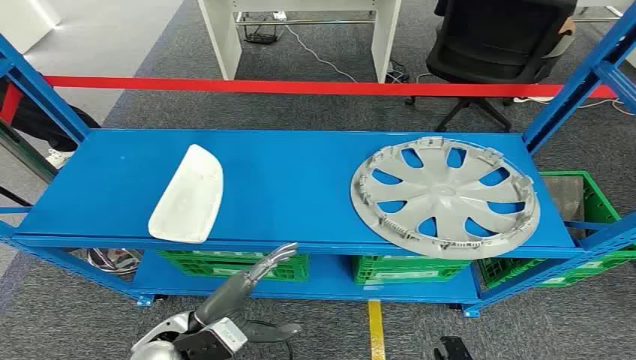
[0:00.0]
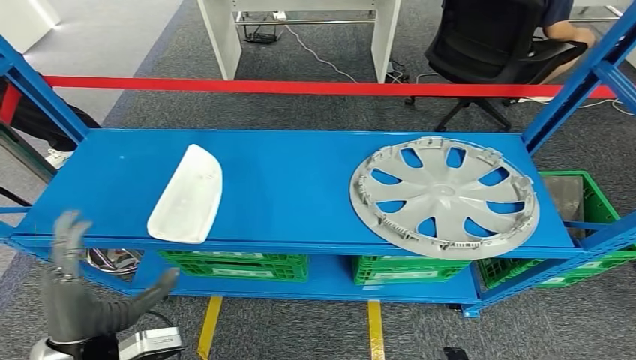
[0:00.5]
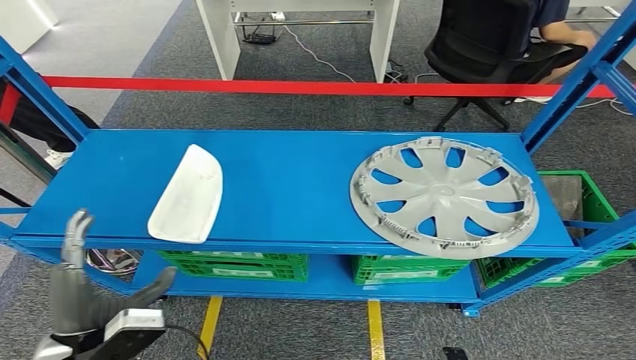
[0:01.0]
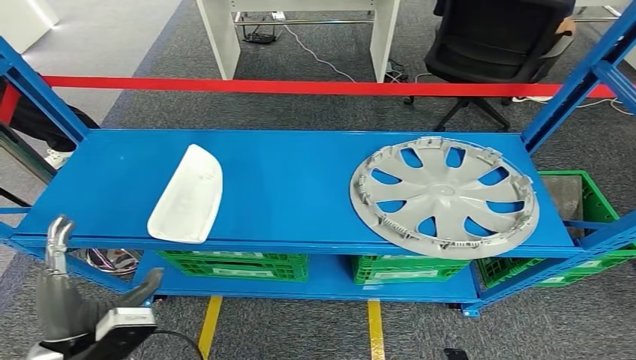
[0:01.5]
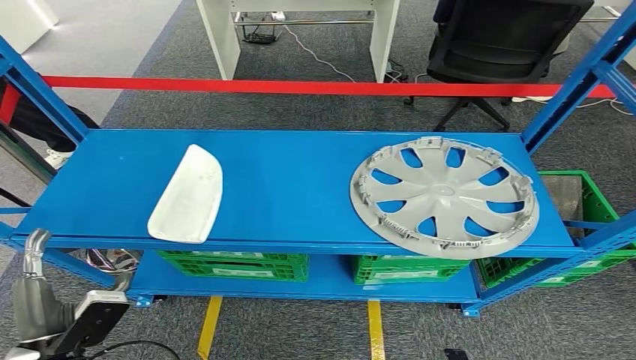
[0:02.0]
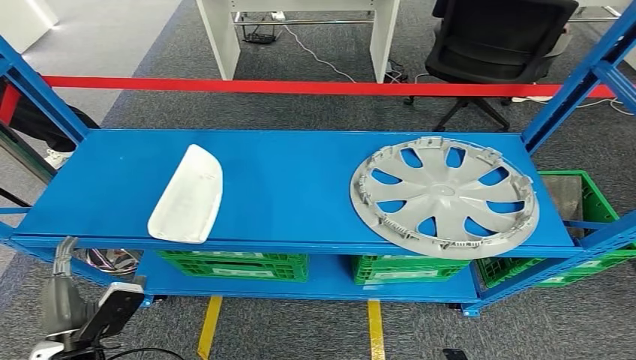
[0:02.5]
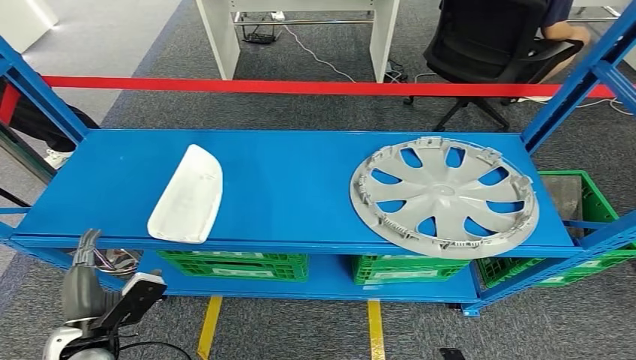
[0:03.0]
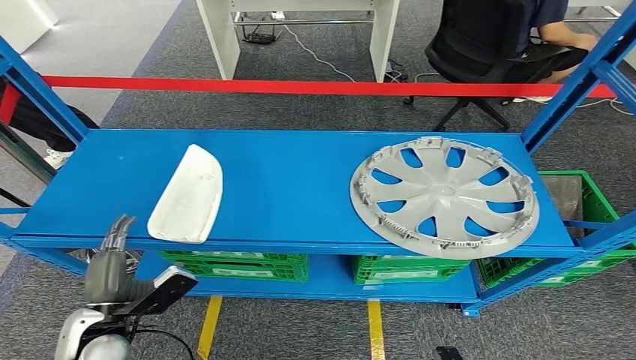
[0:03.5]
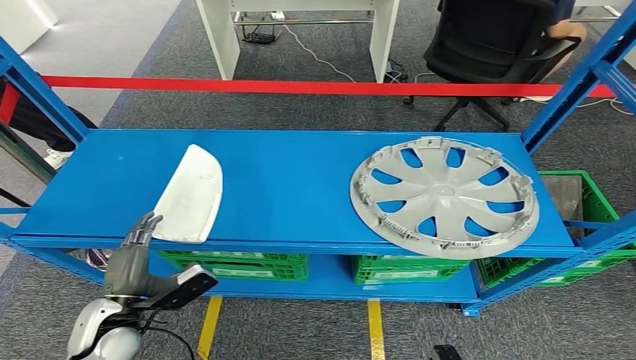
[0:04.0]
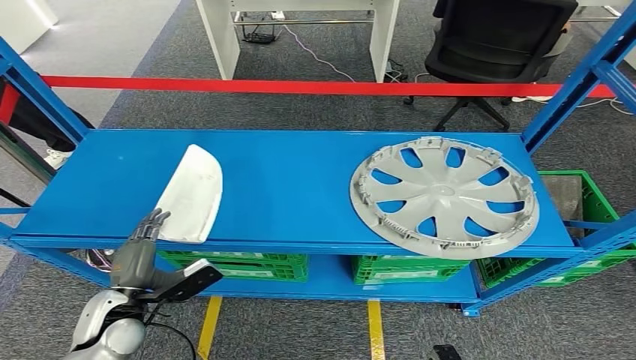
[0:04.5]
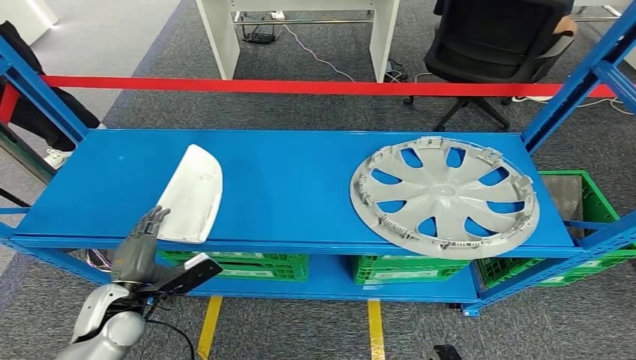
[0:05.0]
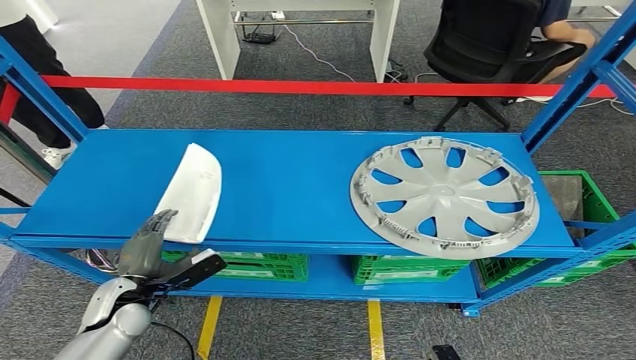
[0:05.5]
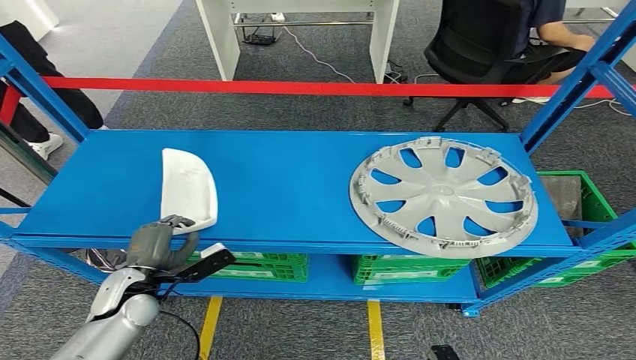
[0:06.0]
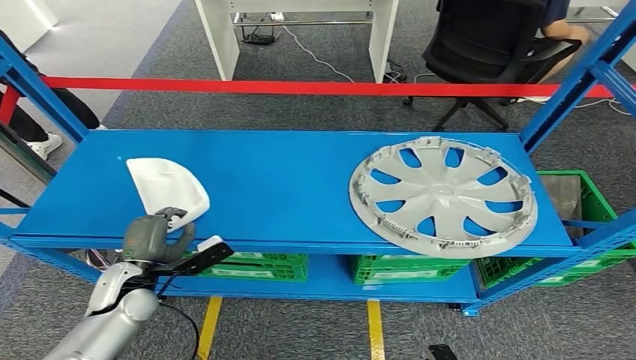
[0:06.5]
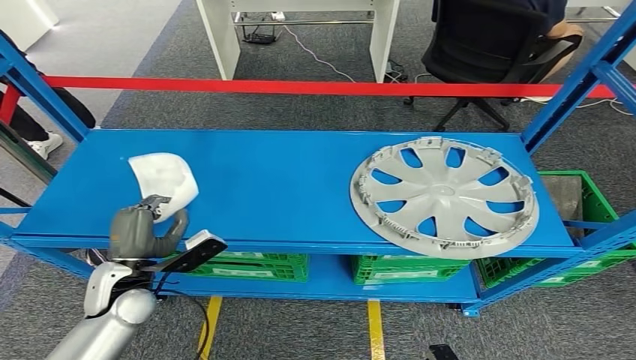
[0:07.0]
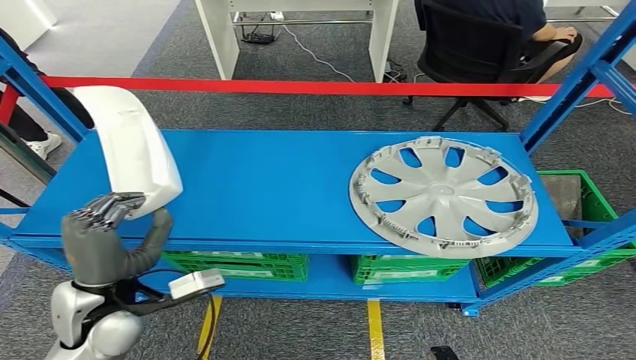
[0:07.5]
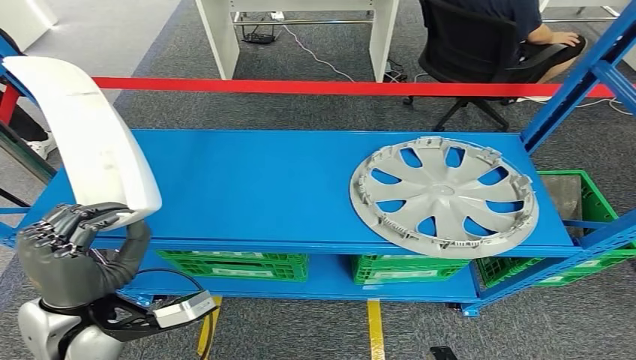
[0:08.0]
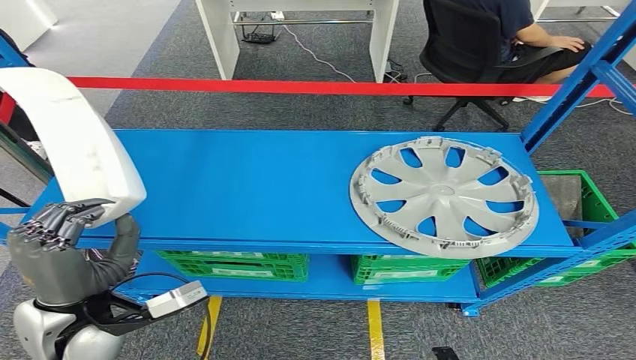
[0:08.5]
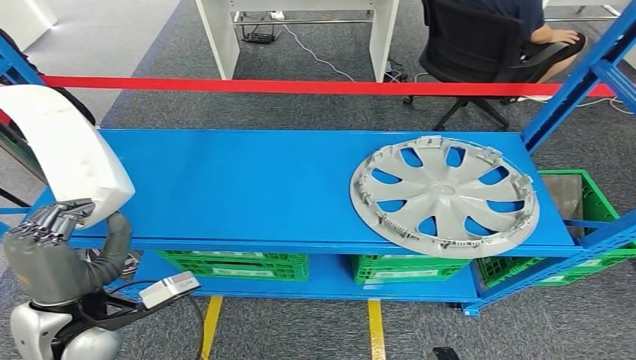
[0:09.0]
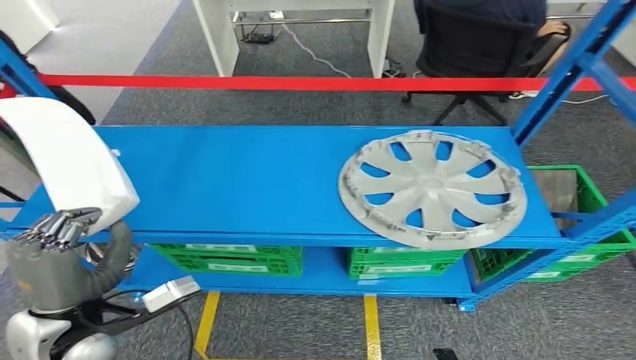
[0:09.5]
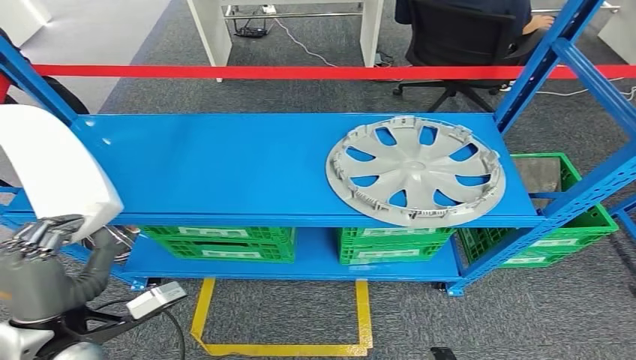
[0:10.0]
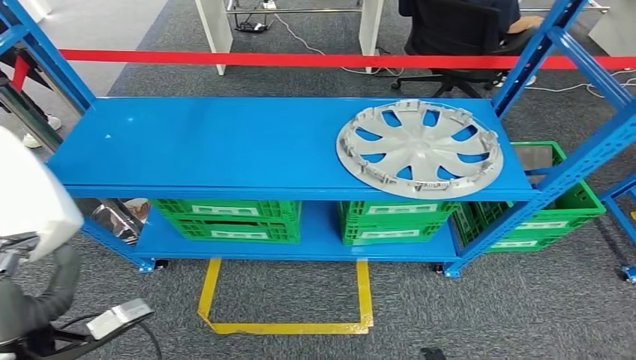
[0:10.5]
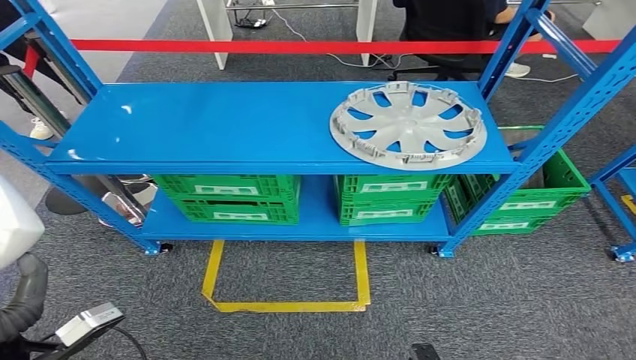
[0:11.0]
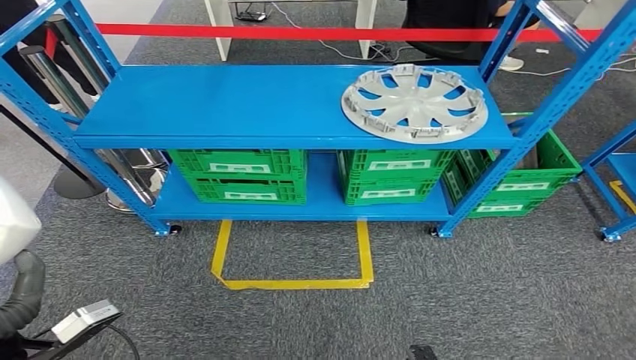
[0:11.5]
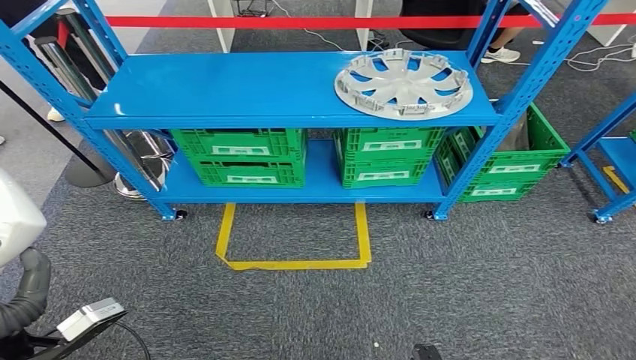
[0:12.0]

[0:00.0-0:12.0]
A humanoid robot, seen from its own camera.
Step, 0:00.0 to 0:08.5: Pick up the small component from the shelf.
0:02.0 to 0:04.0: The left hand goes about 5 cm forward.
0:04.0 to 0:06.0: The left hand is displaced forward by some 5 cm.
0:06.0 to 0:08.0: The left hand moves upward and backward, roughly 20 cm.

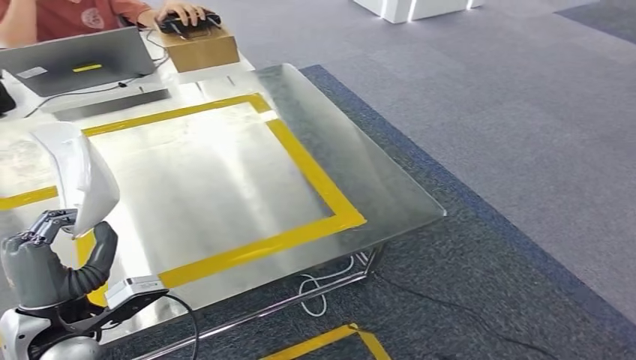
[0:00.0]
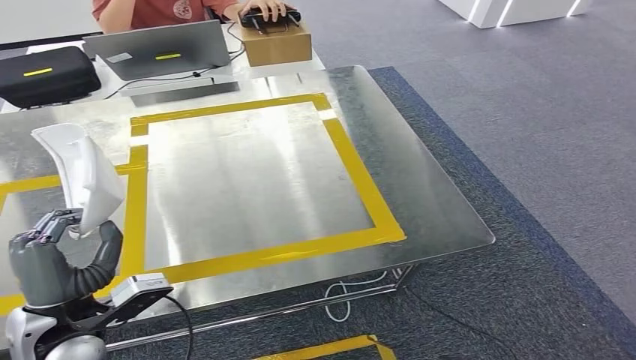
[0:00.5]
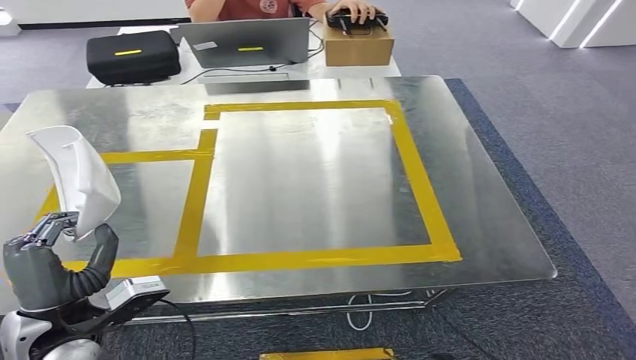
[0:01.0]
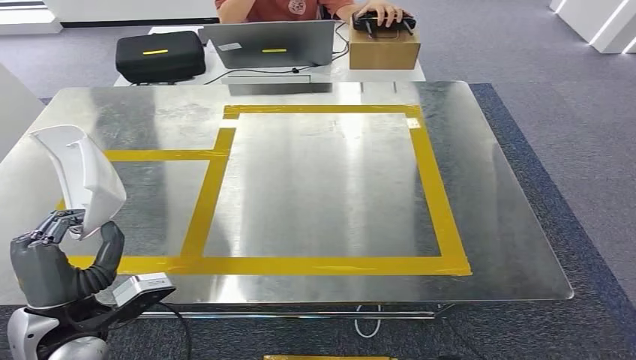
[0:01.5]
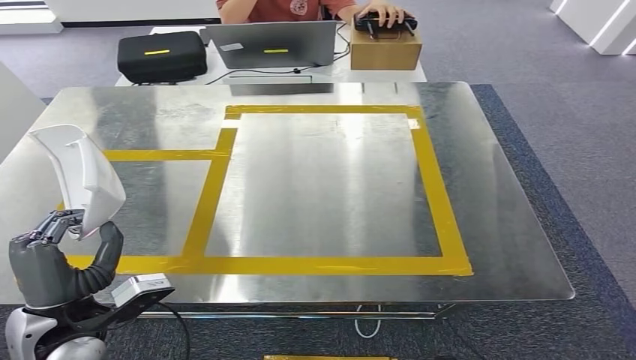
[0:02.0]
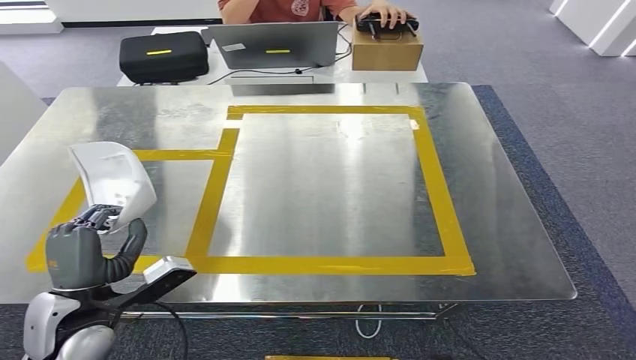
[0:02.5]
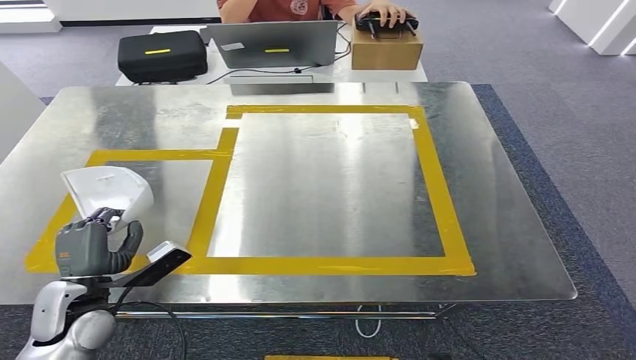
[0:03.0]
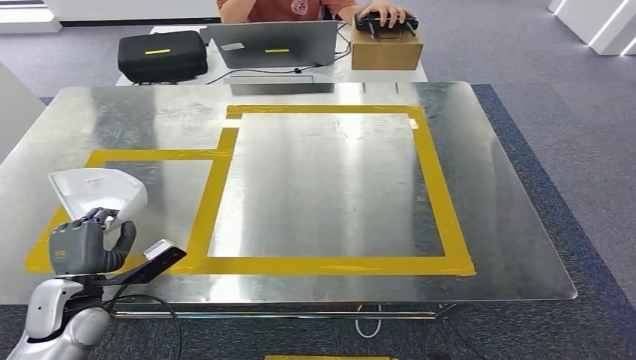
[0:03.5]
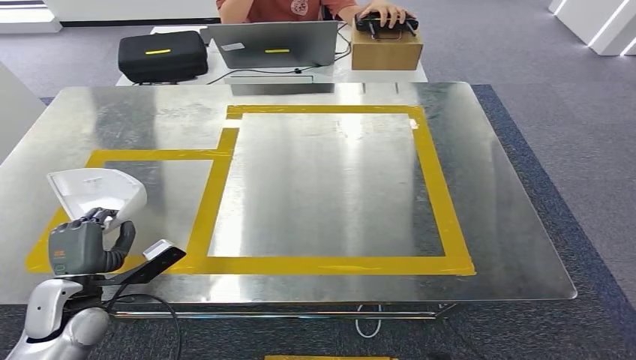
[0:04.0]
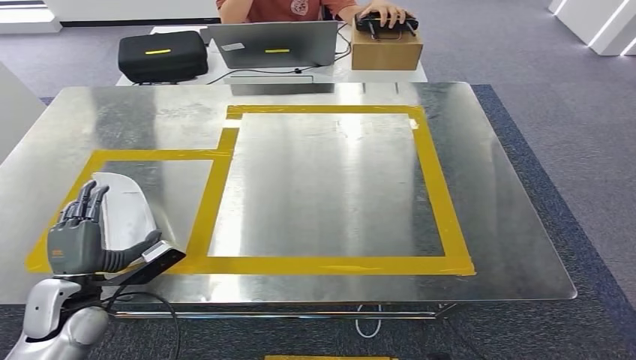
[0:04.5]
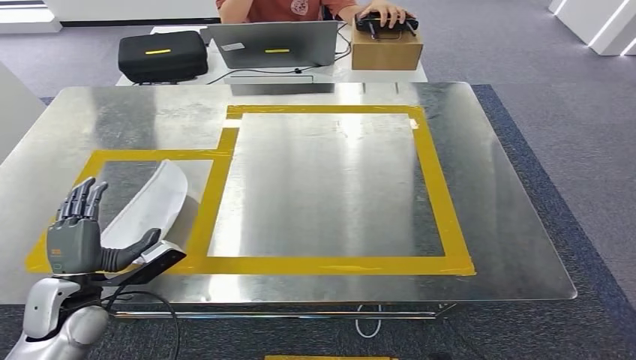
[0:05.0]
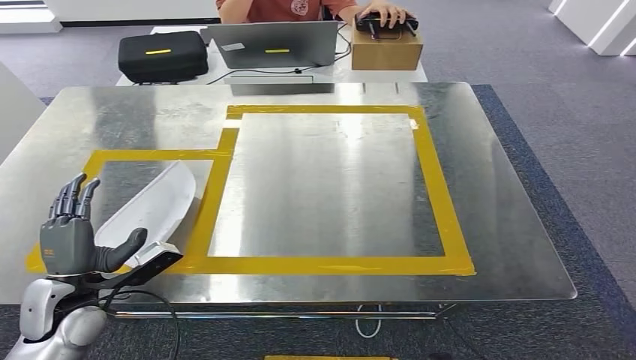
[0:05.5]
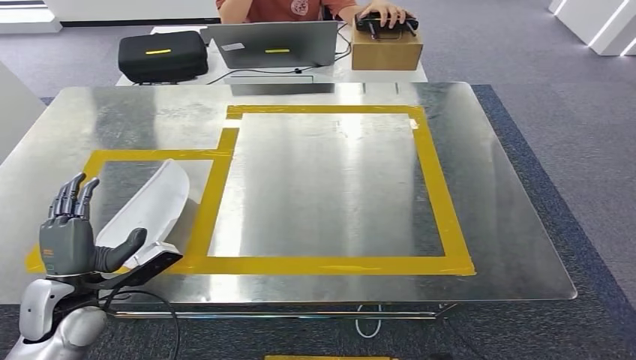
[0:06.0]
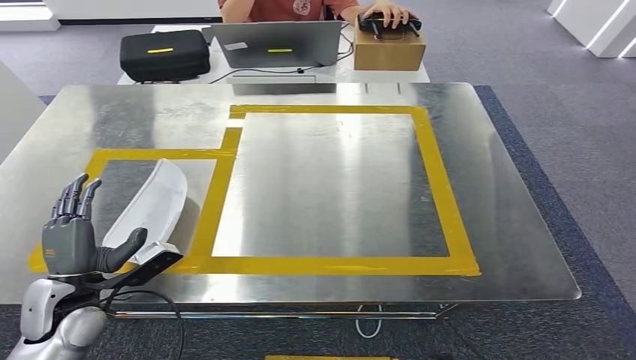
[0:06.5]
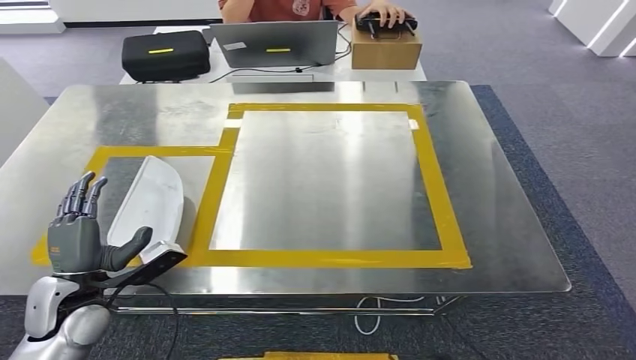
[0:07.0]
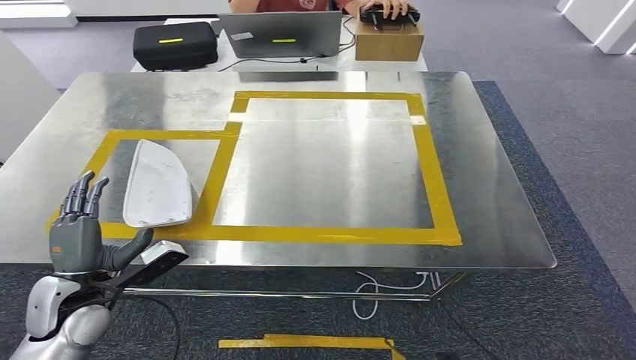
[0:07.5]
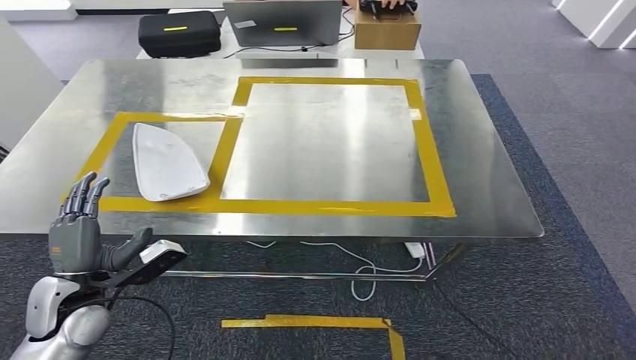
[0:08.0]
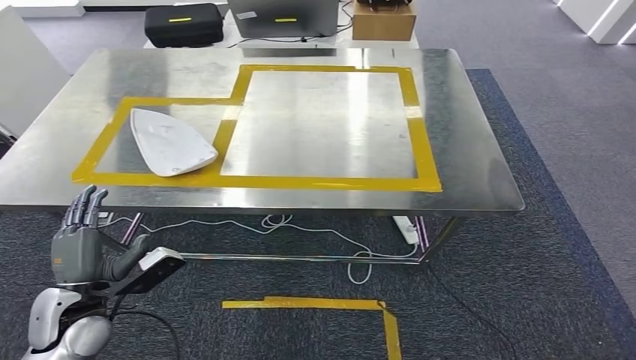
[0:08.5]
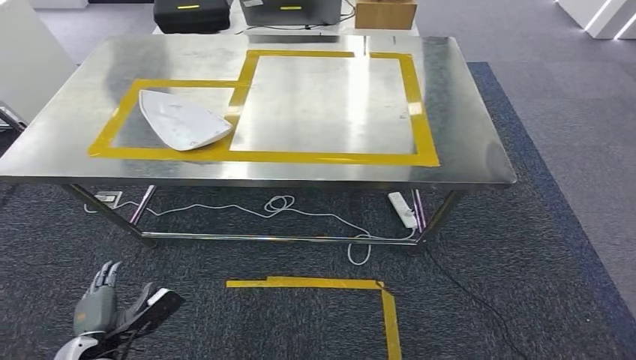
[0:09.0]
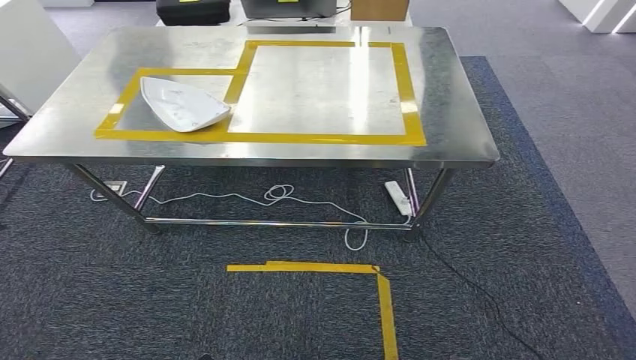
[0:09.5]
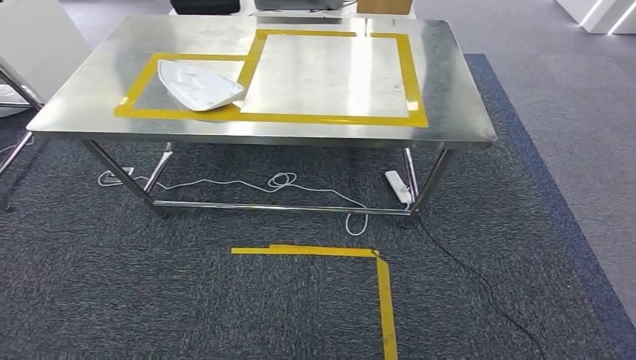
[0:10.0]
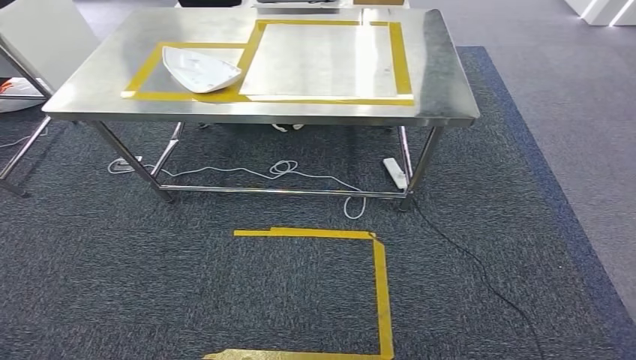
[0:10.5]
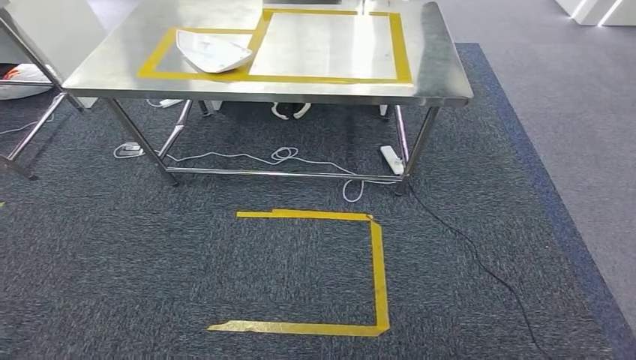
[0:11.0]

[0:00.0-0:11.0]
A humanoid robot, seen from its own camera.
Step, 0:01.5 to 0:10.0: Insert the small component into the corresponding slot on the workbench.
0:02.0 to 0:03.5: The left hand heads downward and forward, covering roughly 10 cm.
0:03.5 to 0:05.5: The hands move only a little.
